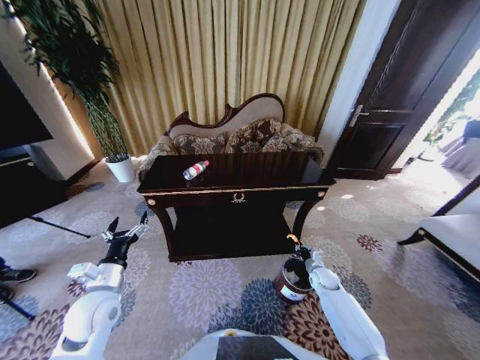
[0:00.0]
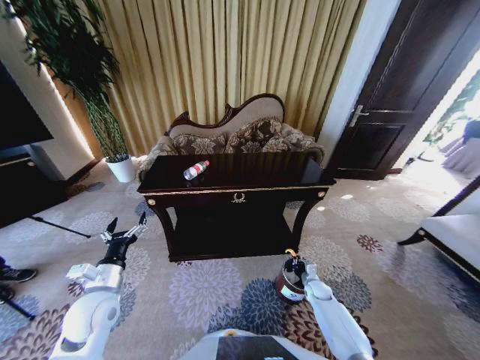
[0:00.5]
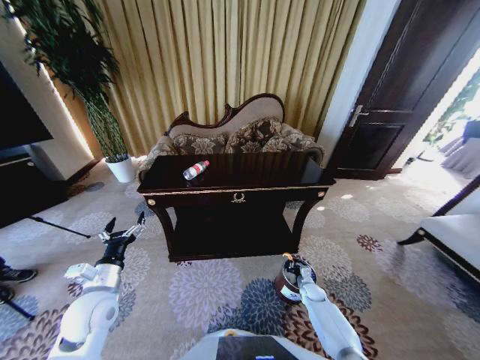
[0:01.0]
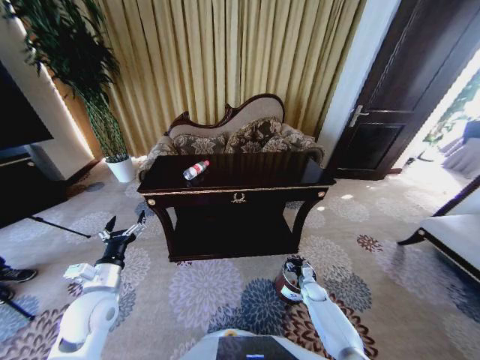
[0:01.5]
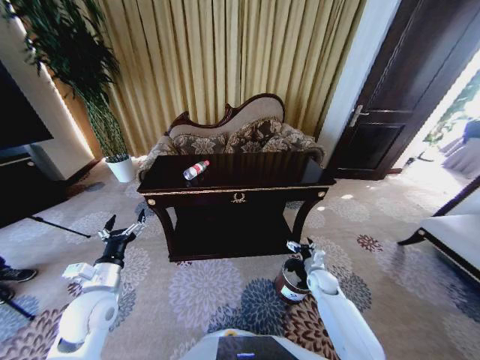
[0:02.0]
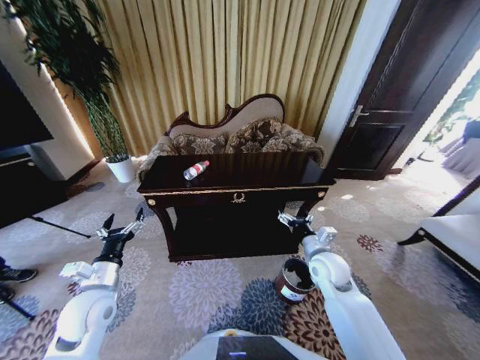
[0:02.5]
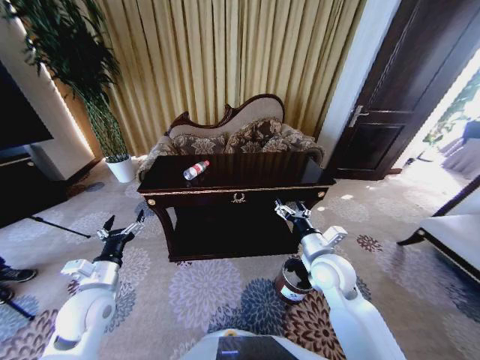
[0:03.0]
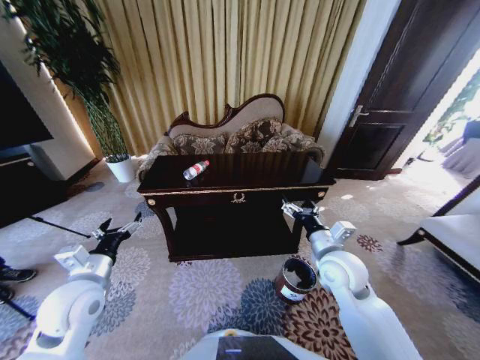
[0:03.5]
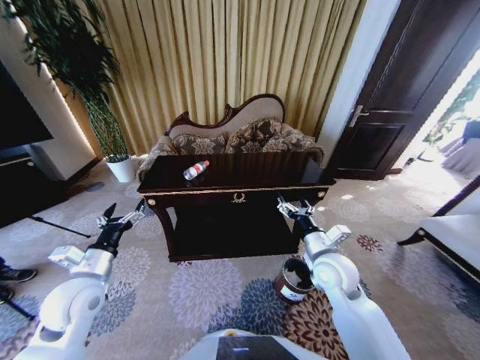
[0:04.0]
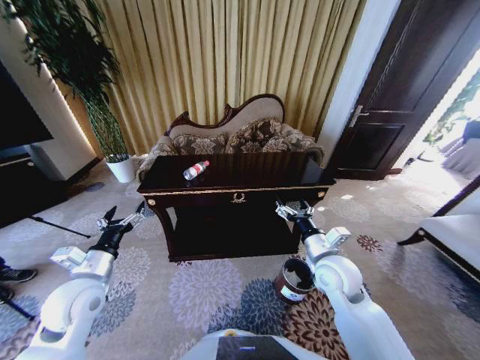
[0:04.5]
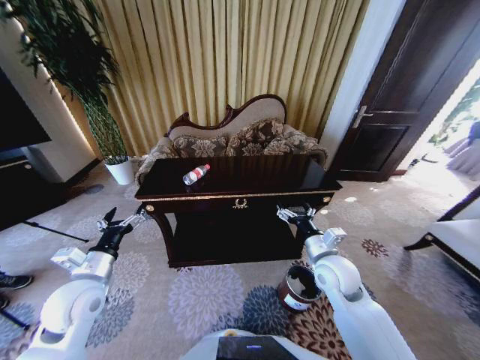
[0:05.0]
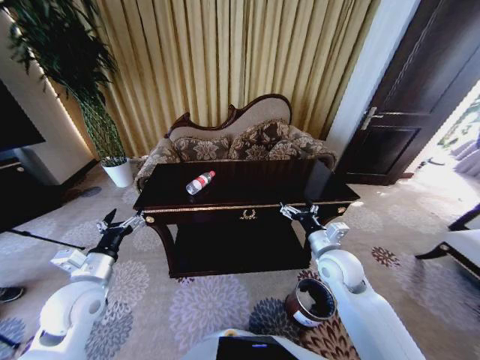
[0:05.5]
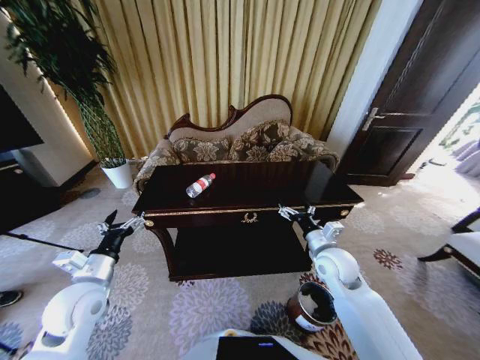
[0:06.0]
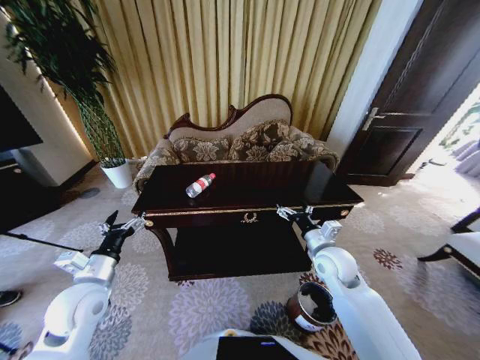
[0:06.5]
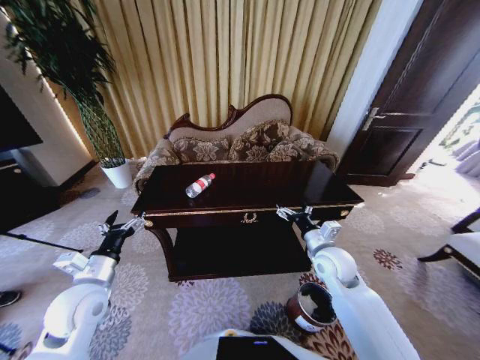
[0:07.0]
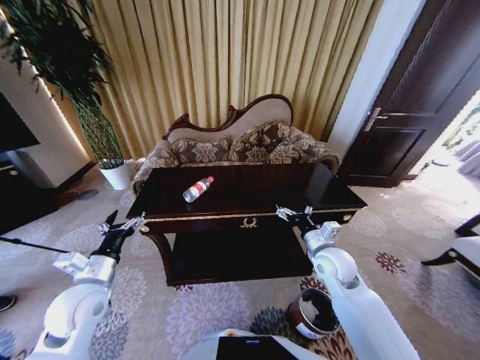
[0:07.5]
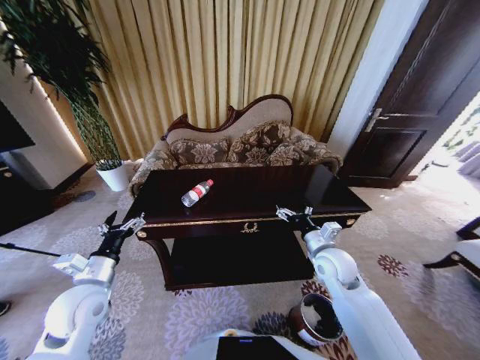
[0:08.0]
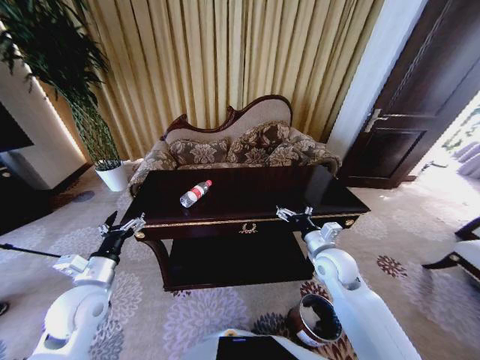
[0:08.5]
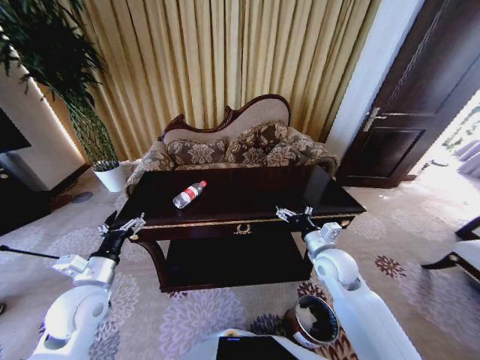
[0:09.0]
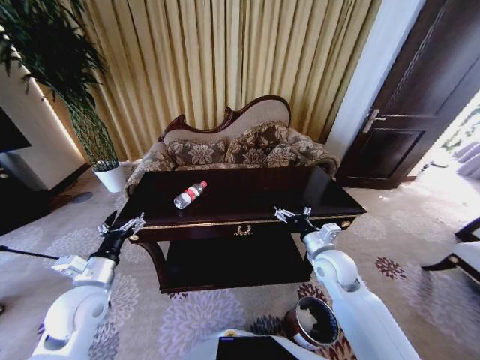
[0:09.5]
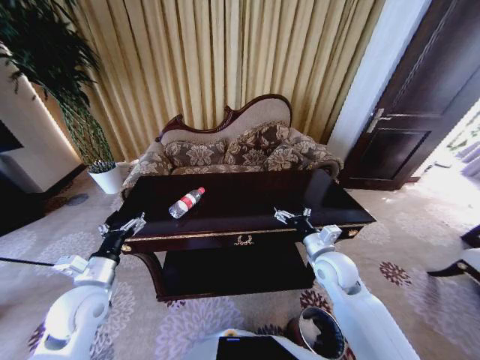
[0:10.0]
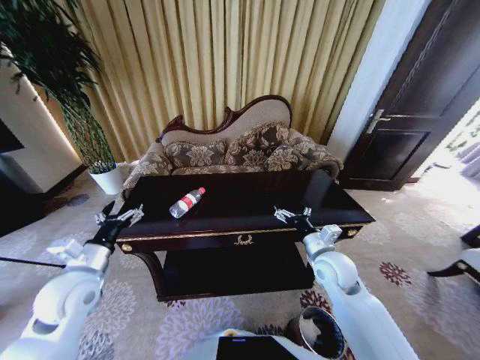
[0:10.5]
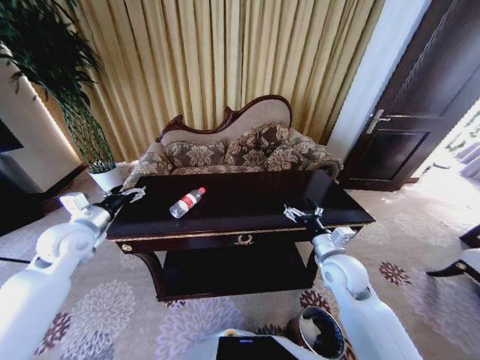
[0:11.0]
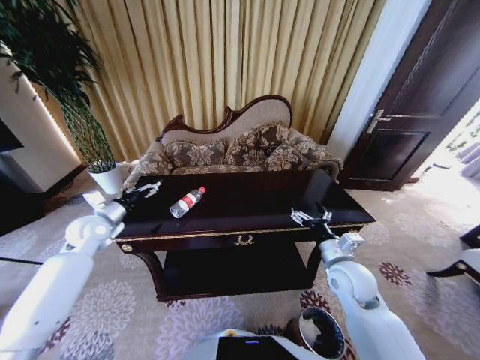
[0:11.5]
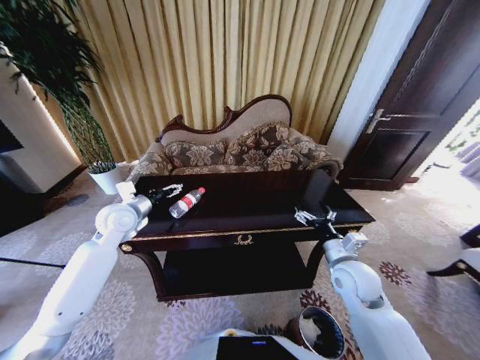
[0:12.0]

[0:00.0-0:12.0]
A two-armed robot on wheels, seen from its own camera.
Task of the whole recording: Move to the front of the table and place the trash on the table into the trash bin.
0:00.0 to 0:02.0: The right gripper moves roughly 10 cm downward and comes back, and opens its fingers.
0:02.0 to 0:04.0: The right gripper moves upward, some 25 cm.
0:10.0 to 0:12.0: The left gripper moves forward, roughly 20 cm.

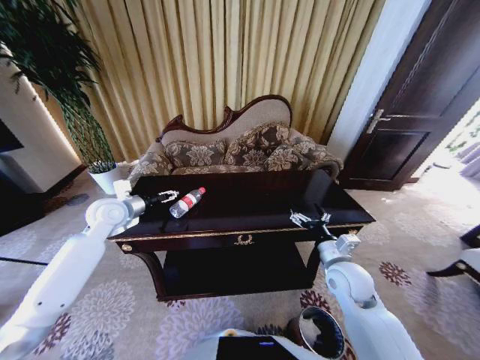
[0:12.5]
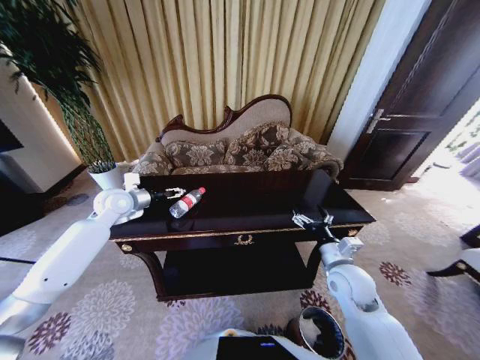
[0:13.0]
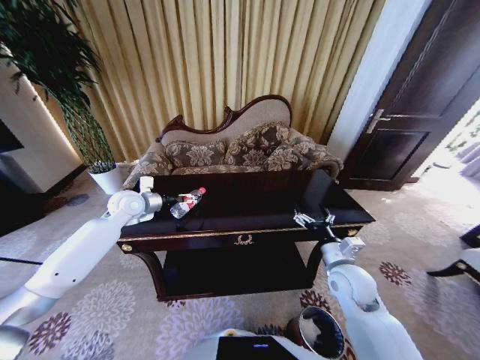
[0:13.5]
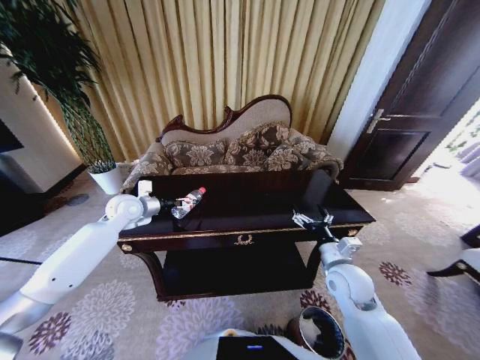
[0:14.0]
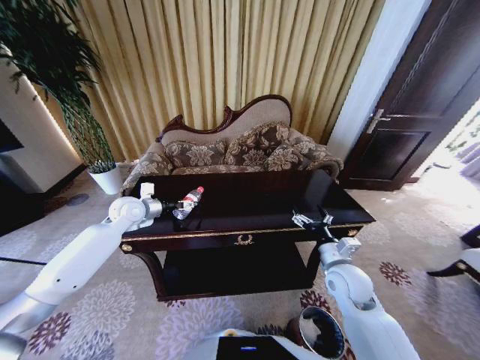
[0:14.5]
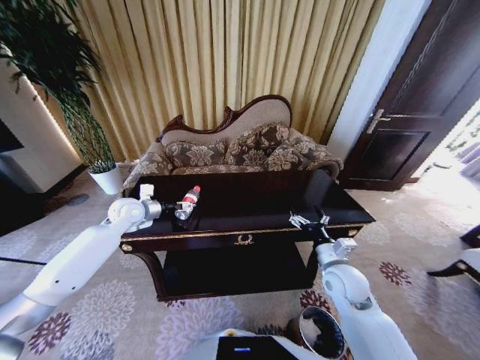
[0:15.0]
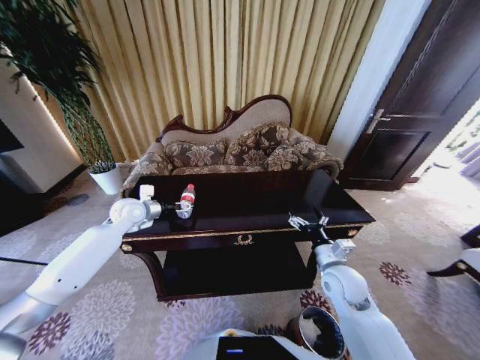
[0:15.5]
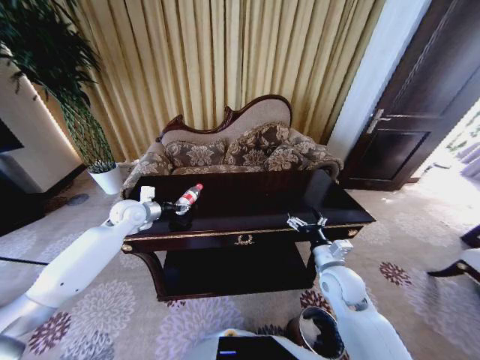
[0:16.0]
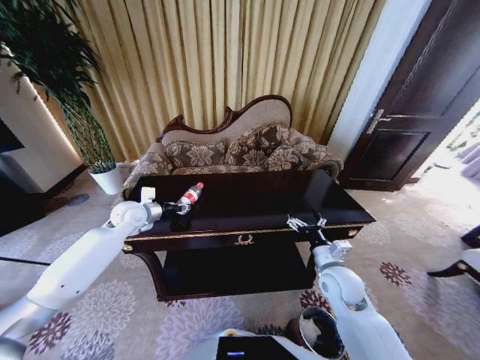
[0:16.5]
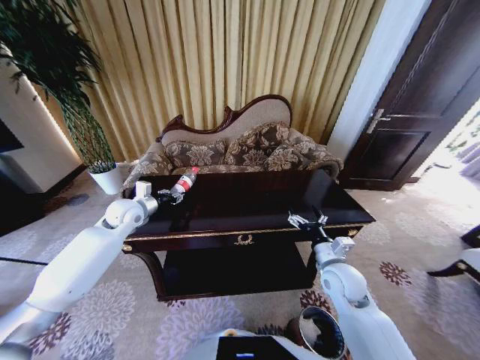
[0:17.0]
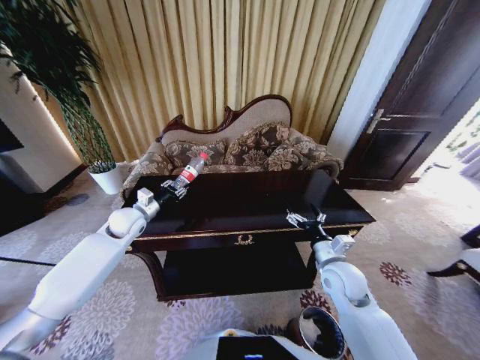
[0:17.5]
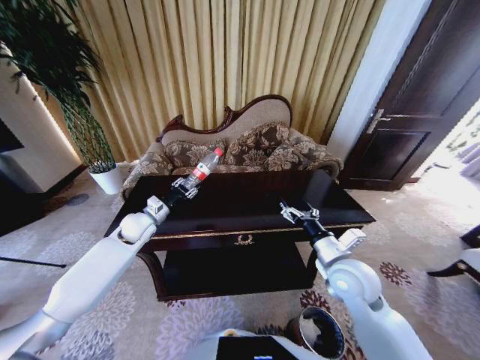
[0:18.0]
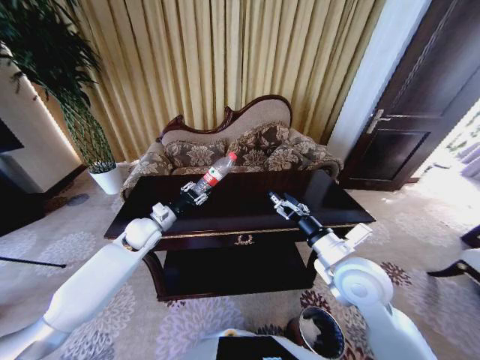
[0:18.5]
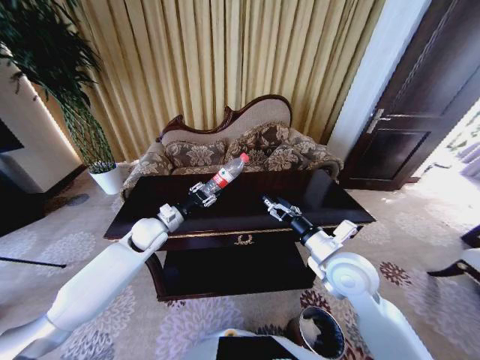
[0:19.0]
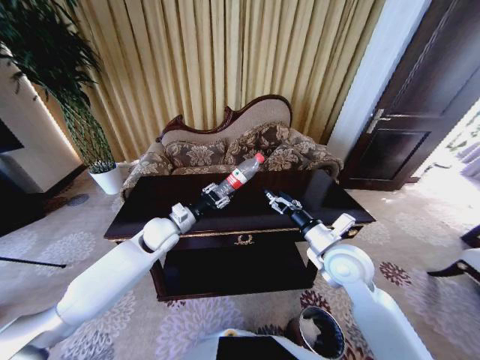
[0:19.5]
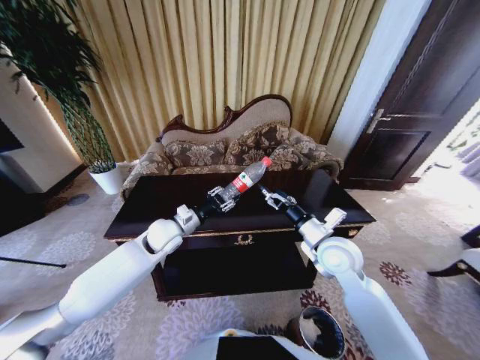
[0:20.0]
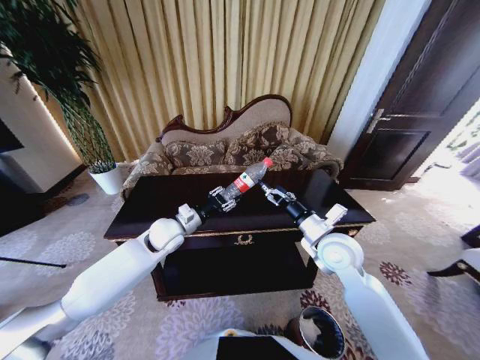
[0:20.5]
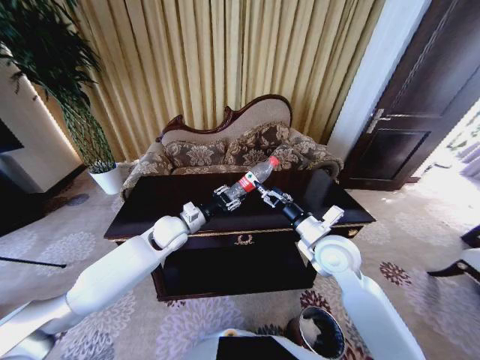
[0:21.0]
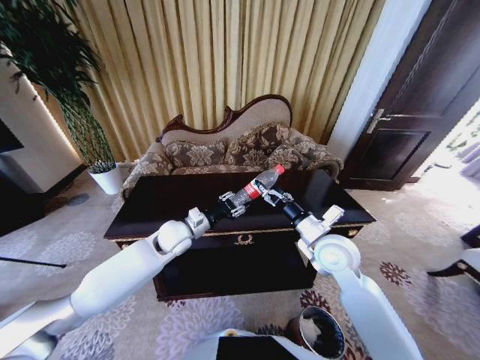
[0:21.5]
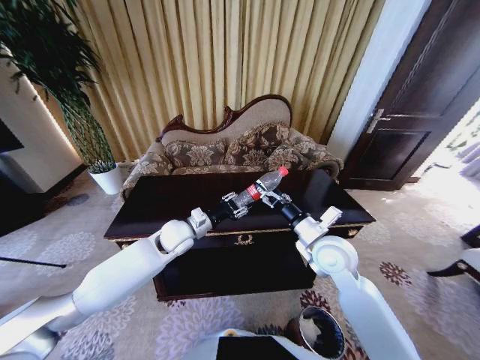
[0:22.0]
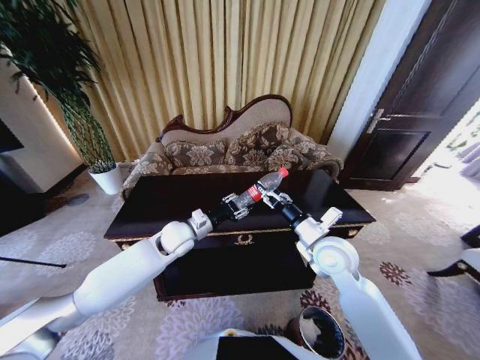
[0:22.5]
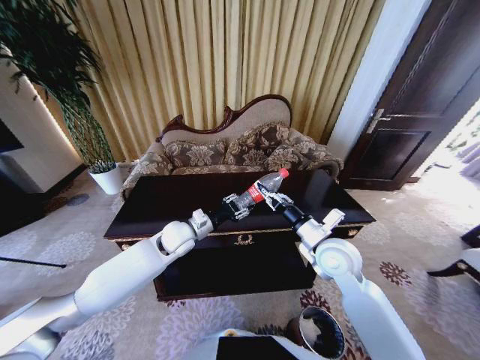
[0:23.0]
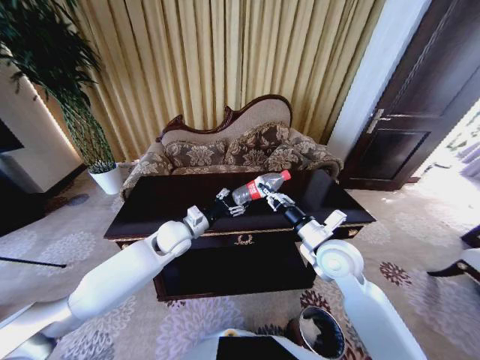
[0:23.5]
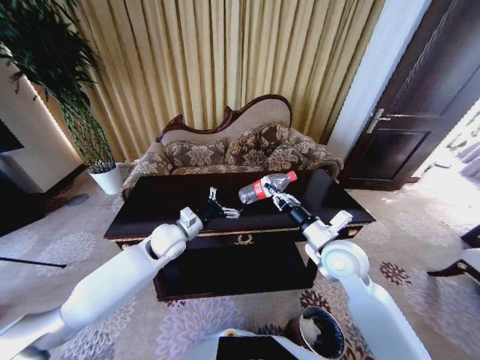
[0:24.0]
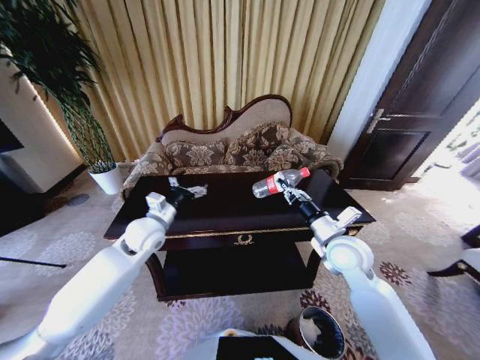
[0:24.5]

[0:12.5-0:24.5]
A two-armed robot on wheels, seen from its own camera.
Task of the whole recording: Move to the front of the table and place the trash on the table into the trash bin.
0:12.5 to 0:14.5: The left gripper ends up about 5 cm from where it was.
0:14.5 to 0:16.5: The left gripper closes up.
0:16.5 to 0:18.5: The right gripper travels upward by roughly 10 cm, while the left gripper moves some 5 cm.
0:18.5 to 0:20.5: The right gripper travels forward by some 5 cm; the left gripper is displaced to the right by roughly 10 cm.
0:20.5 to 0:22.5: The grippers move only a little.
0:22.5 to 0:24.5: The left gripper goes approximately 10 cm to the left, and opens up; the right gripper closes up.

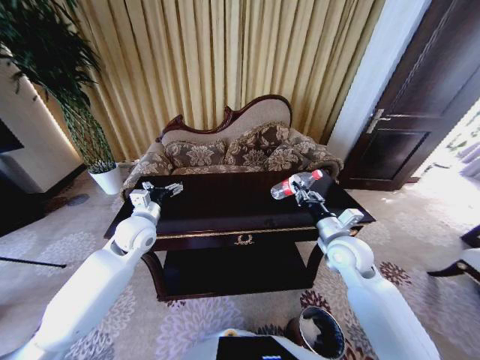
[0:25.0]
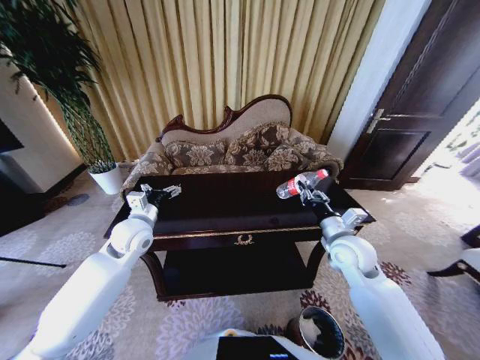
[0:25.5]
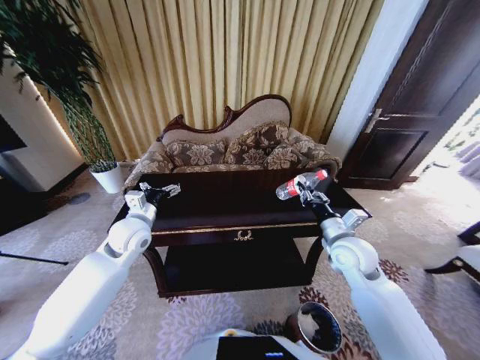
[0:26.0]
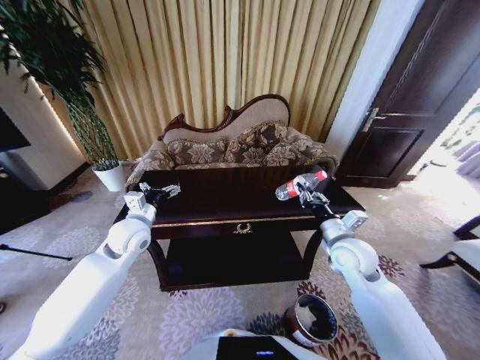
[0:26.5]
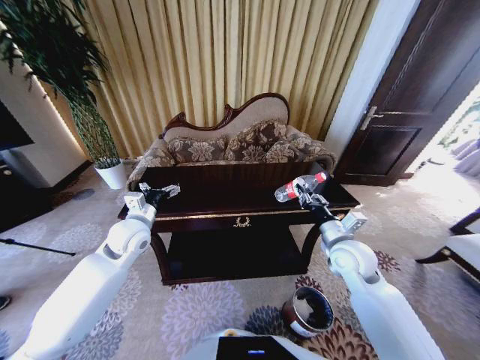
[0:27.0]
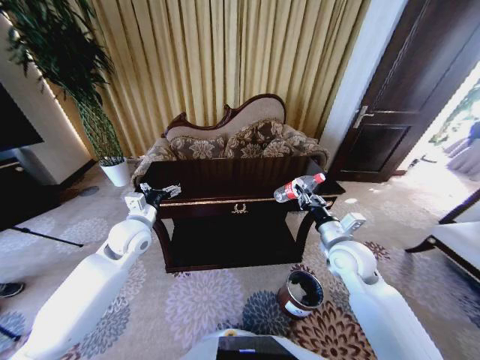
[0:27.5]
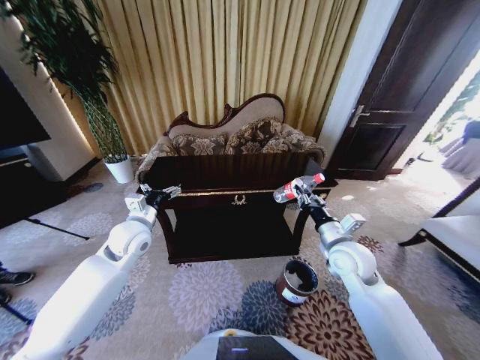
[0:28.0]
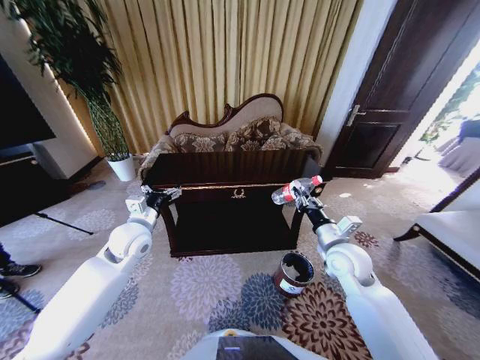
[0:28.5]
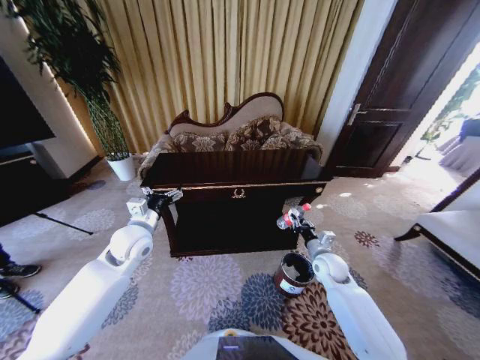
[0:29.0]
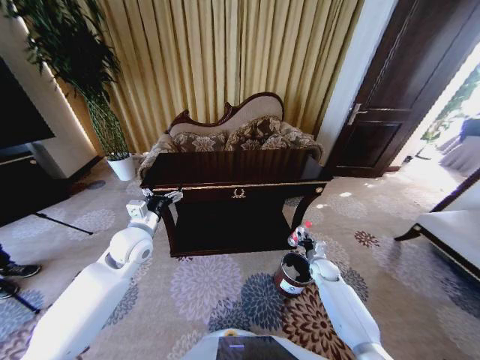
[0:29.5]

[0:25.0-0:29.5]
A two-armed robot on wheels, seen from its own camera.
Task of the whole recording: Move to the front of the table and place the trash on the table into the trash bin.
0:27.0 to 0:29.5: The right gripper is displaced downward by approximately 25 cm.
